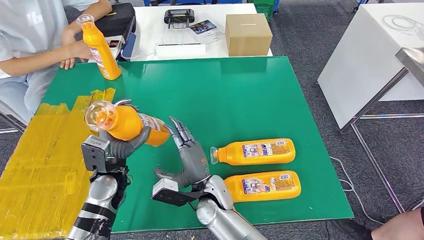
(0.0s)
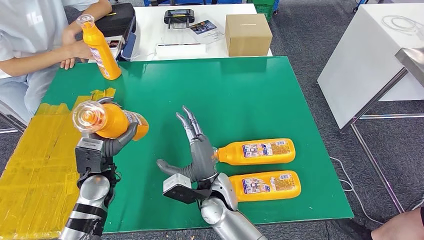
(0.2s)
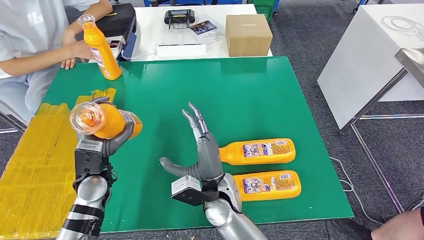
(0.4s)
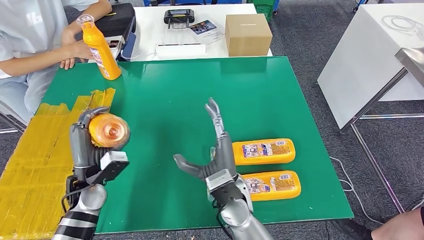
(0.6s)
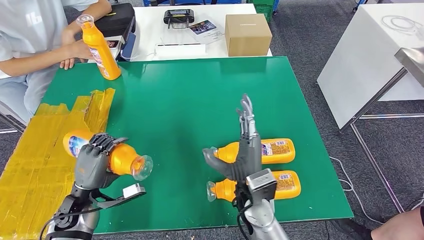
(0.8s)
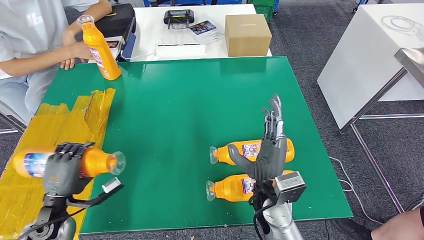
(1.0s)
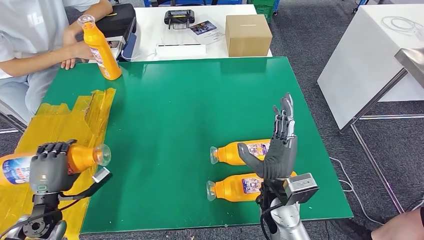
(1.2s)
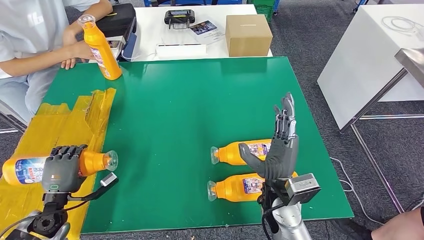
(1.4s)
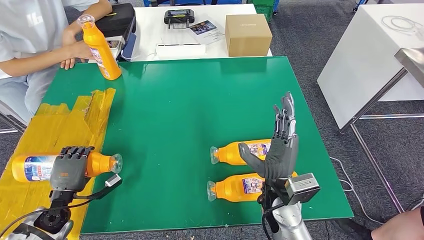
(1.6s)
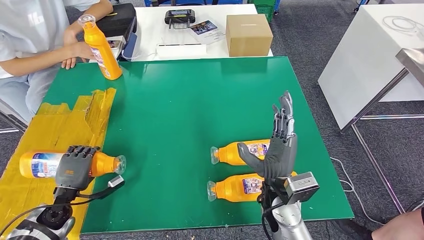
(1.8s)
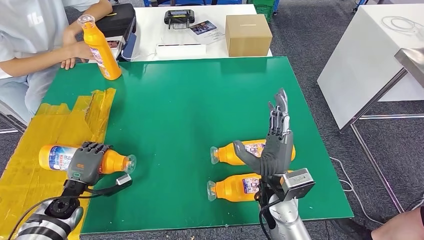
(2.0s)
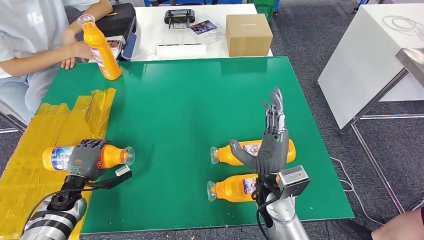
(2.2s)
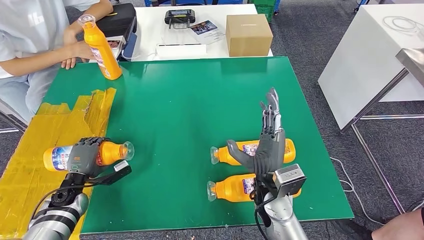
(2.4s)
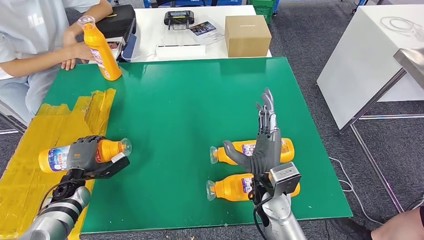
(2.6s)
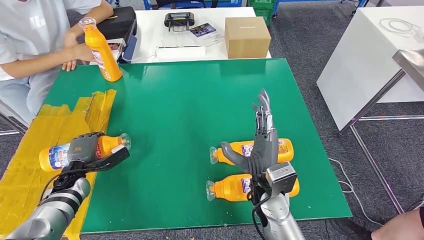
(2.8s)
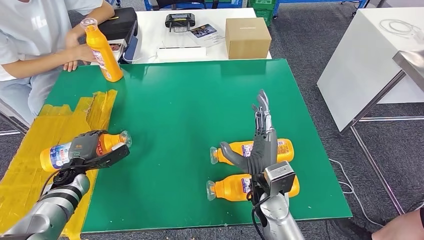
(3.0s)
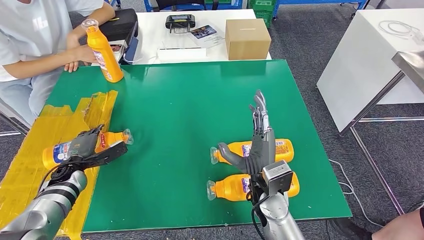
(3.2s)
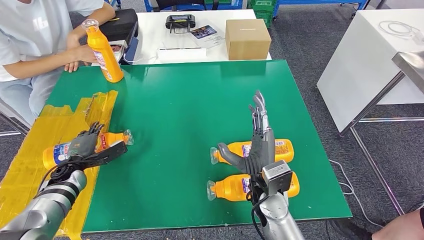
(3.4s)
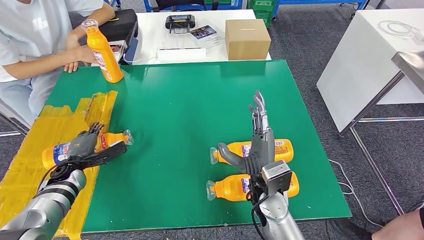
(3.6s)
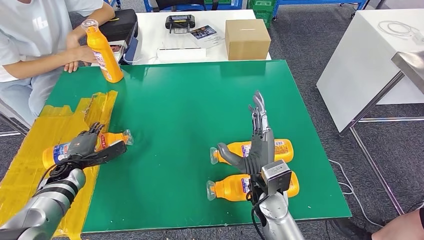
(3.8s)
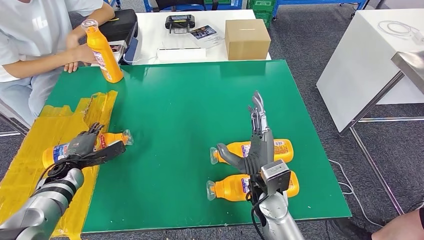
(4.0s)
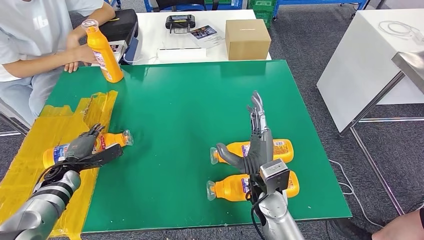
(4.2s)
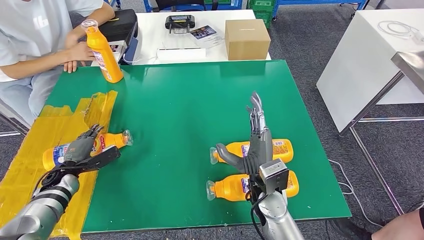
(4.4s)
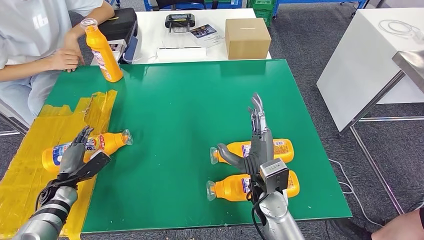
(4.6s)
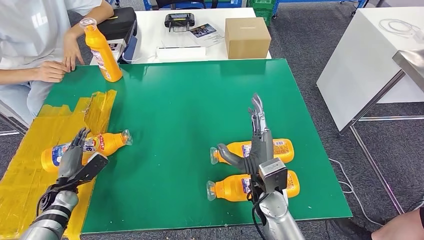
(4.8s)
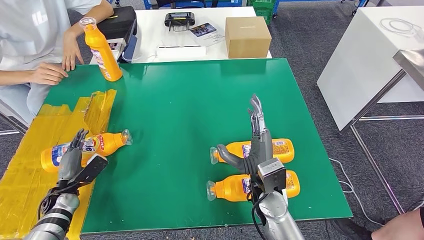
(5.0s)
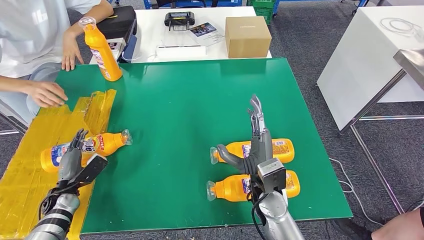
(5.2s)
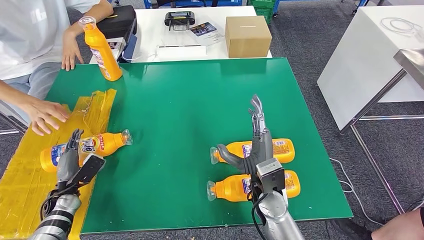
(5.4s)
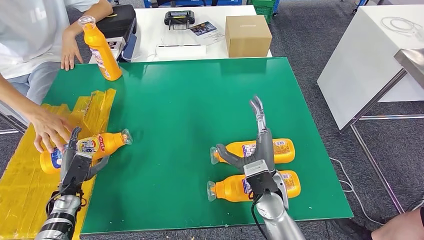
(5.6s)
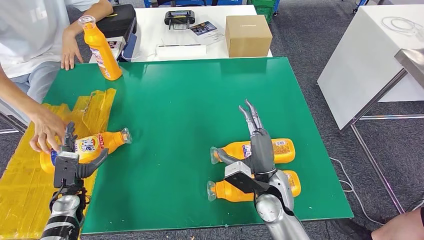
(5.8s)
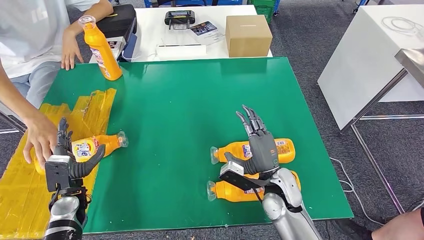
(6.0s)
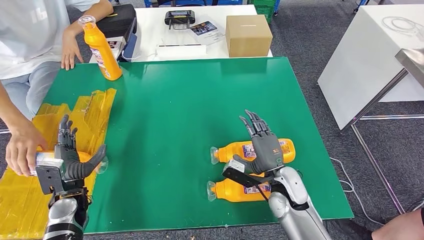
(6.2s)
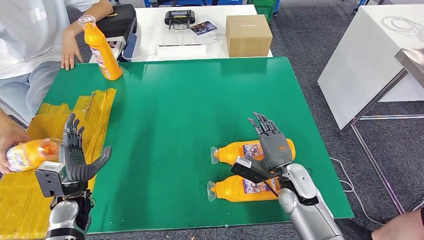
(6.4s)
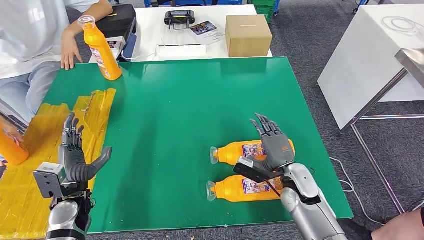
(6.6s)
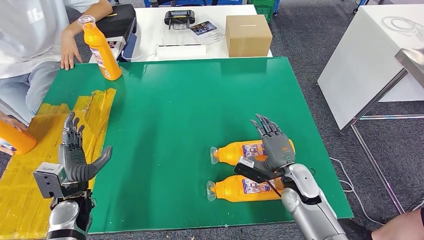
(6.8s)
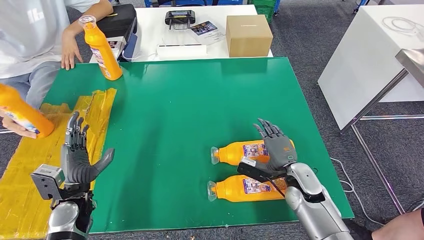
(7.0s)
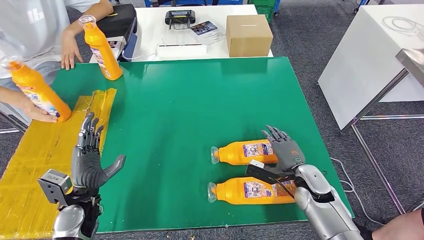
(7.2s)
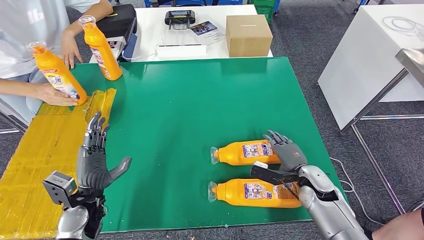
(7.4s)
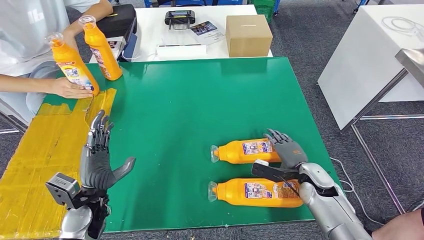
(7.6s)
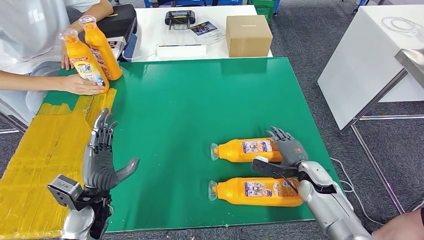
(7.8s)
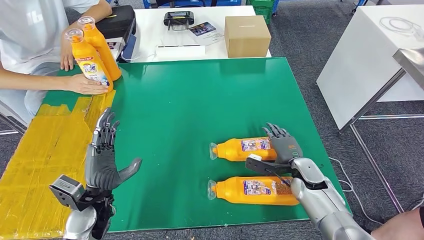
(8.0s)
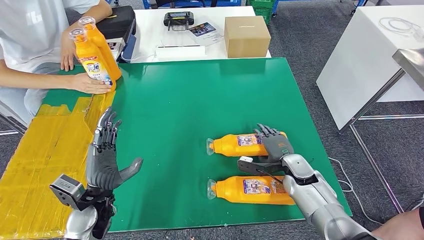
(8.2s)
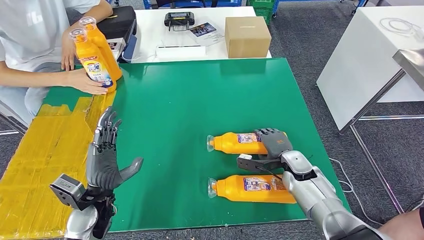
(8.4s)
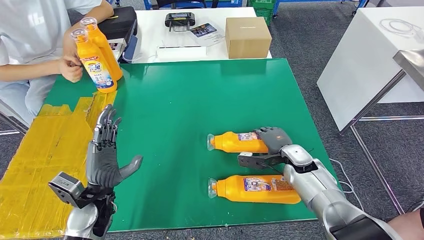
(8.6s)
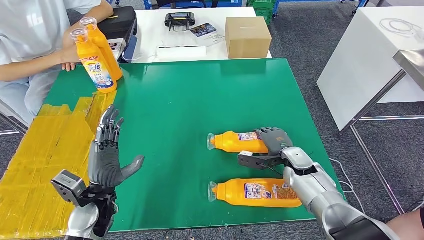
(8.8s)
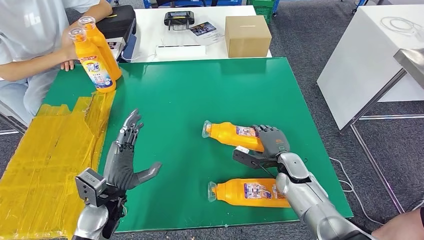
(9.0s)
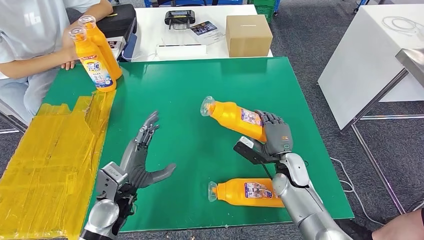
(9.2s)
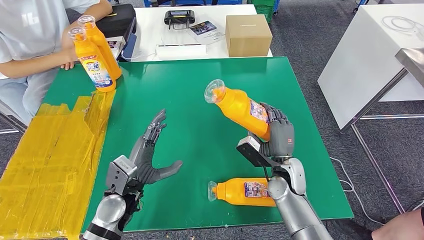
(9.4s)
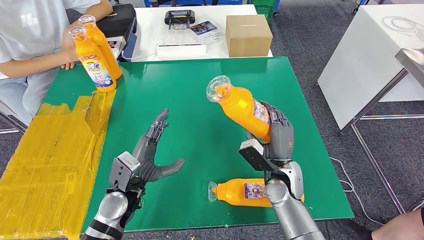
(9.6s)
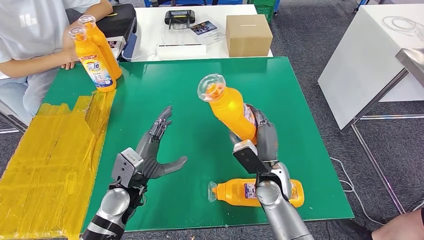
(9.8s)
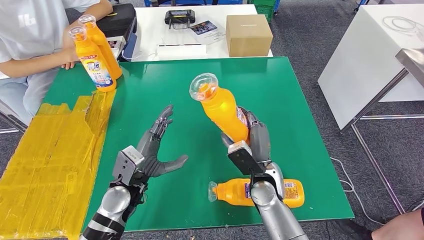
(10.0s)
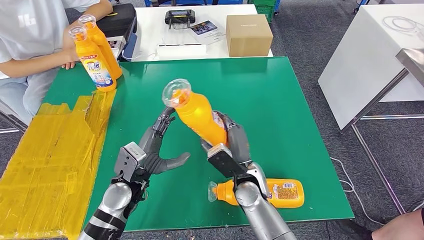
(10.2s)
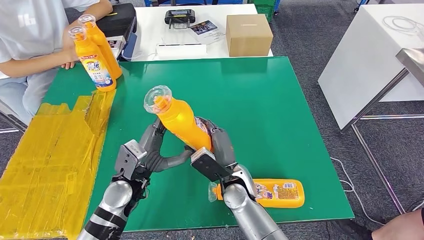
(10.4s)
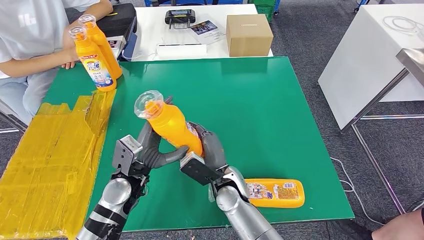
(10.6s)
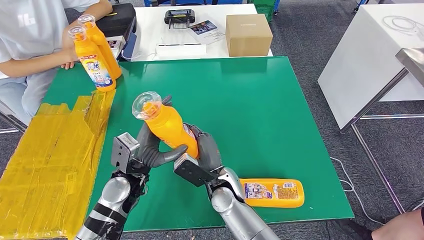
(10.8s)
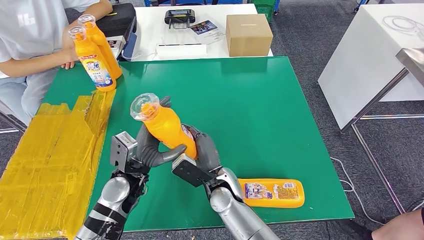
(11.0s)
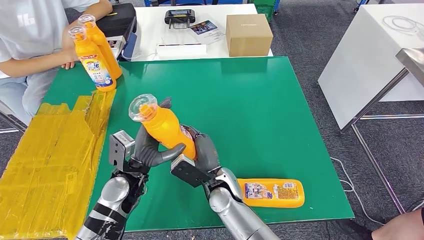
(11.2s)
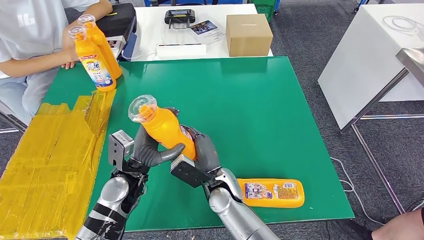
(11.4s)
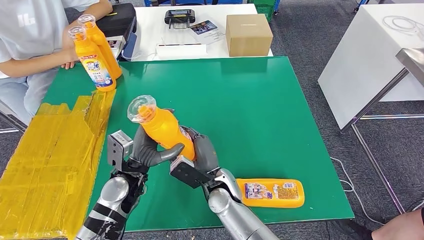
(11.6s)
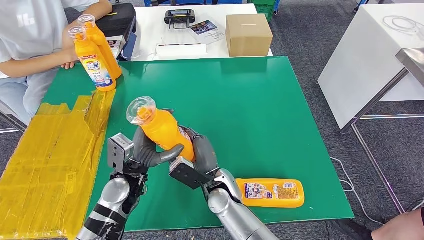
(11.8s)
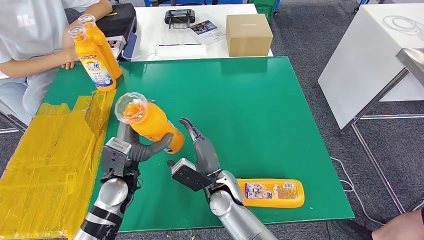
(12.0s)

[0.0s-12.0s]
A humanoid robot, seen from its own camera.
Step, 0.0s to 5.6s: Flip the bottle to face forward.
Step, 8.2s to 11.2s: Pick up the bottle from the table.
0.0s to 1.6s: The right hand shifts approximately 15 cm to the right and upward. Meanwhile the left hand is displaced to the left and downward by some 20 cm.
3.0s to 4.4s: The hands stay close to where they were, moving slightly.

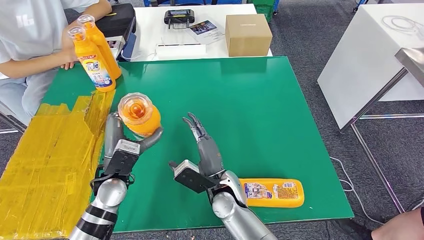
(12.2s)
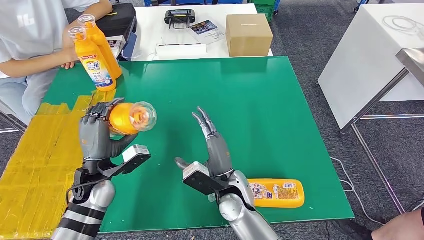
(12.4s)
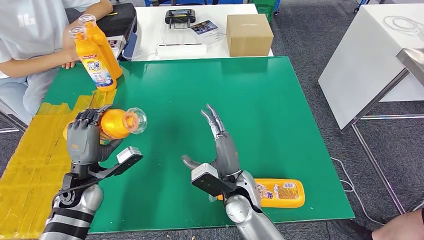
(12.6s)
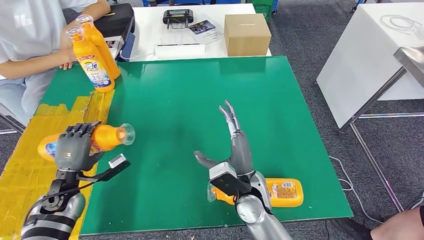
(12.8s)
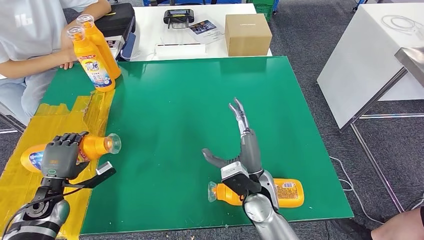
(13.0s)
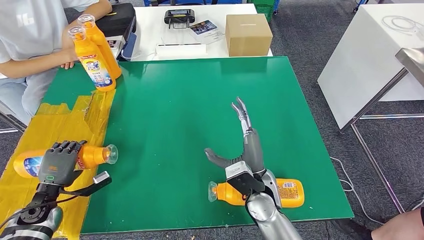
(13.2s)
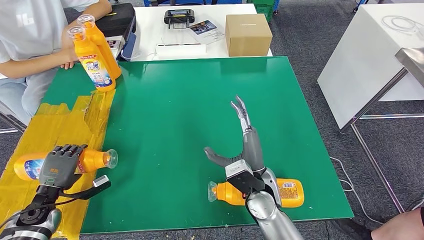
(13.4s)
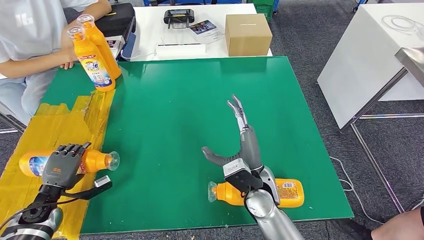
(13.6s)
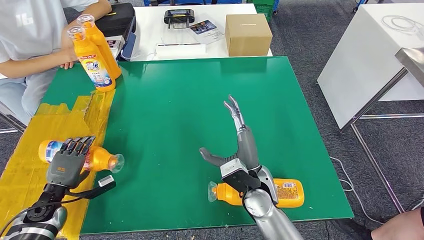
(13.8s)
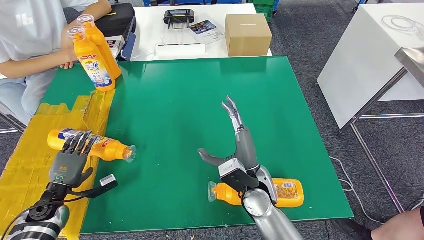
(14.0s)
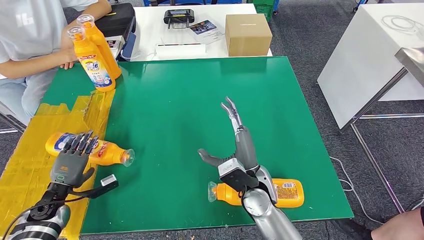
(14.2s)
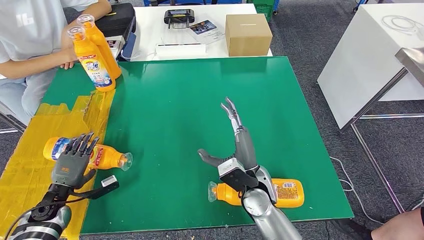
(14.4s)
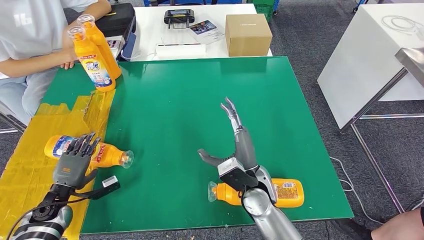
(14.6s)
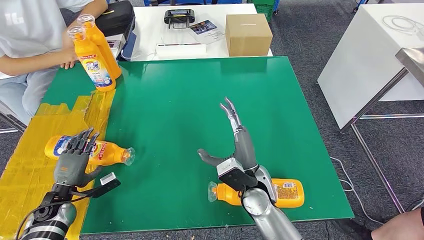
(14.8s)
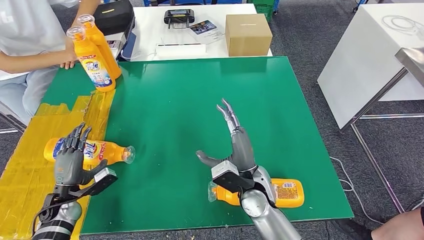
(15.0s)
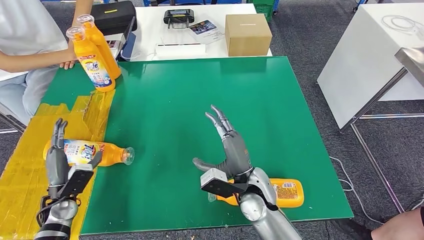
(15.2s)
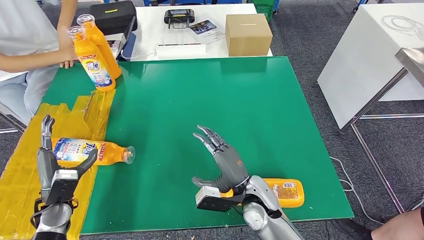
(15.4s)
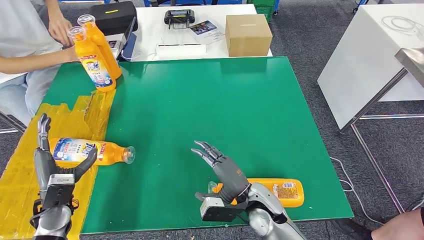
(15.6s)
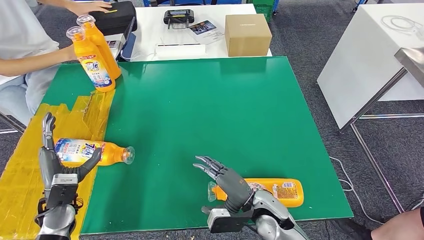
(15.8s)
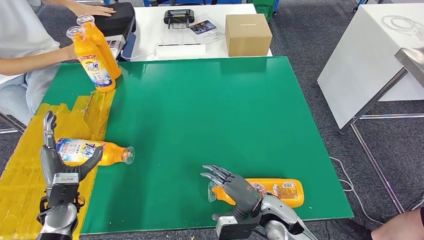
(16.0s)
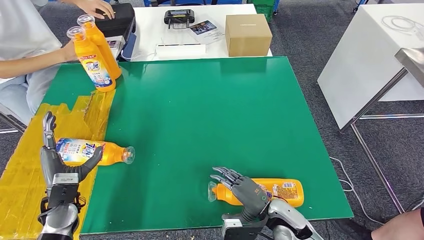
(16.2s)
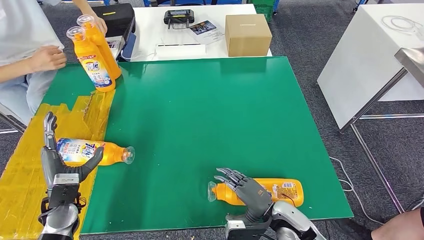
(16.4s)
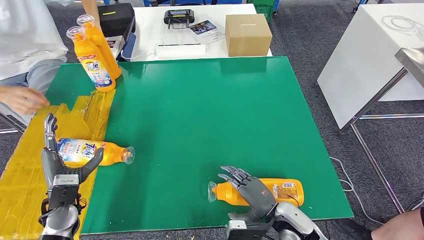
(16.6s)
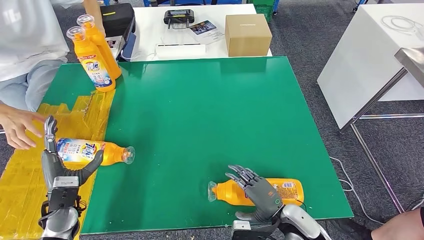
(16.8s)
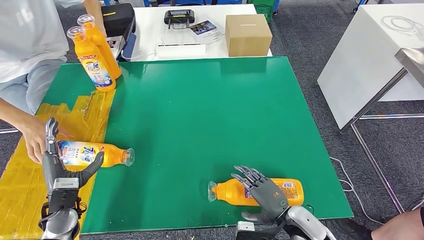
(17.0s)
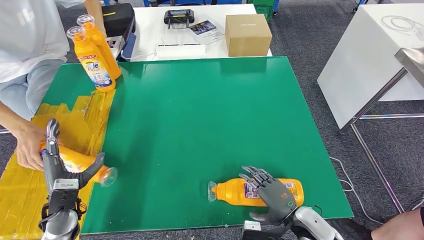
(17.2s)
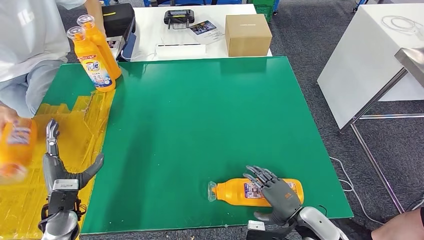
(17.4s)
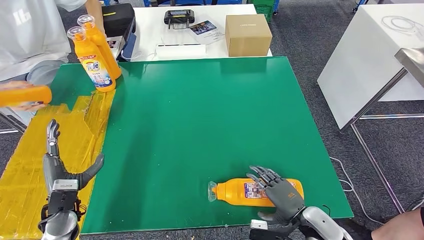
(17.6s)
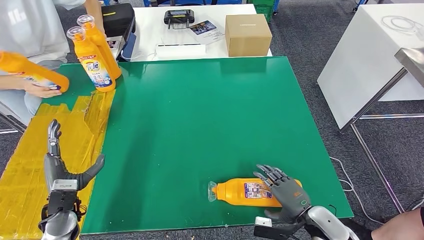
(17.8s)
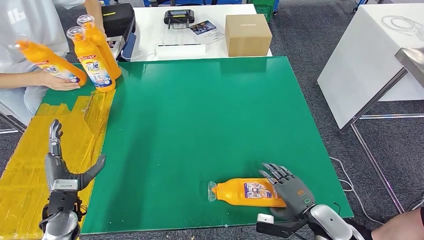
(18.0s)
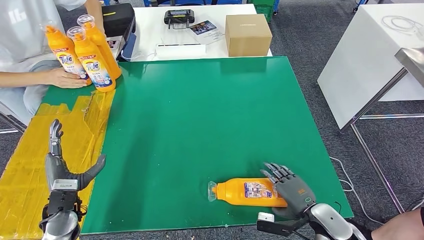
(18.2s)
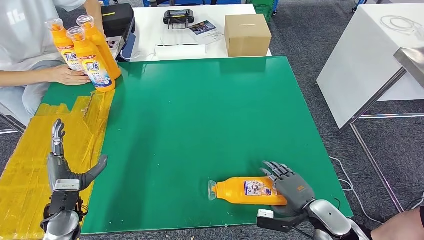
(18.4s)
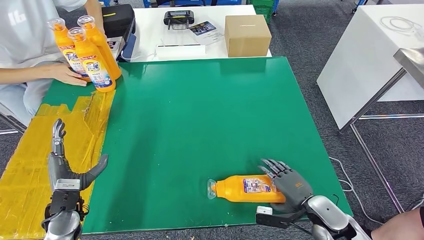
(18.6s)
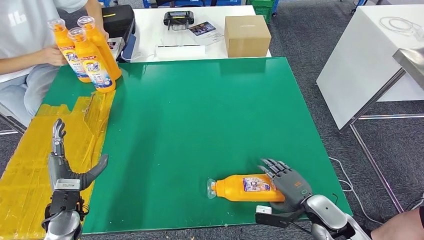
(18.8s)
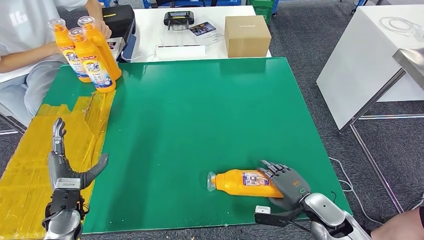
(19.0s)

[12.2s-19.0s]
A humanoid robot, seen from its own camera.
Step, 12.4s to 16.6s: Flip the bottle to face forward.
12.2s to 13.6s: The left hand goes roughly 25 cm to the left and downward, while the right hand is displaced to the right by roughly 10 cm.
15.0s to 16.2s: The right hand moves to the right, downward and backward, some 15 cm. The left hand is displaced upward by roughly 5 cm.
16.2s to 17.6s: The right hand goes approximately 10 cm to the right.
17.6s to 19.0s: The hands stay close to where they were, moving slightly.
